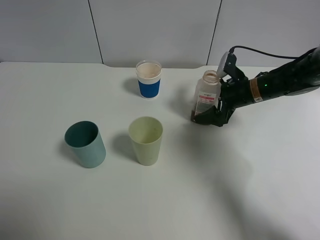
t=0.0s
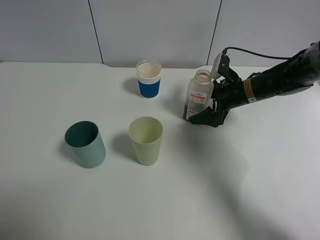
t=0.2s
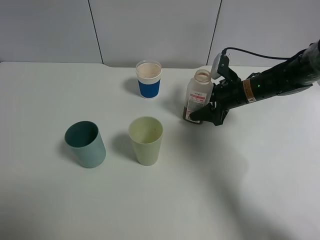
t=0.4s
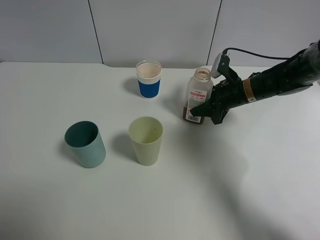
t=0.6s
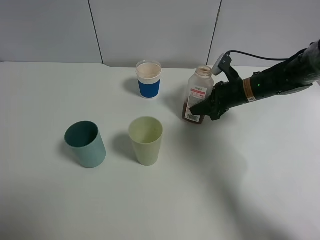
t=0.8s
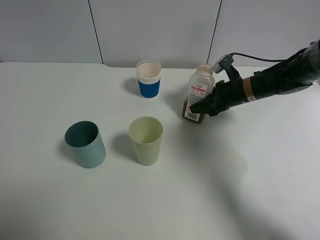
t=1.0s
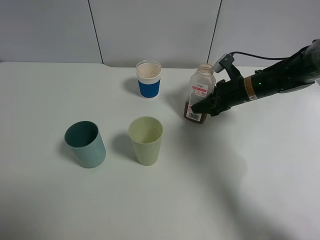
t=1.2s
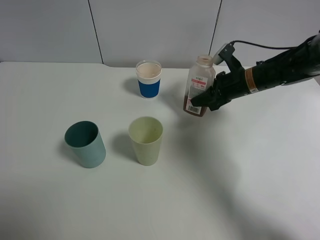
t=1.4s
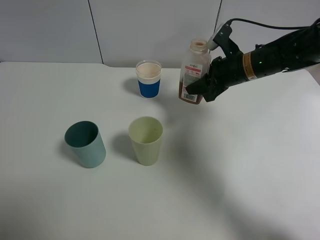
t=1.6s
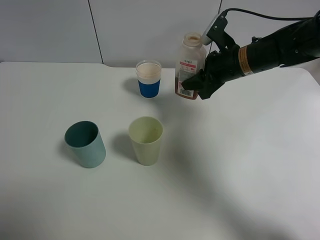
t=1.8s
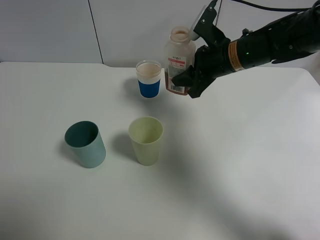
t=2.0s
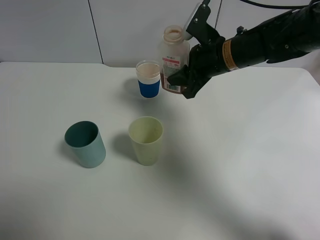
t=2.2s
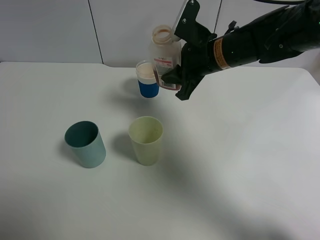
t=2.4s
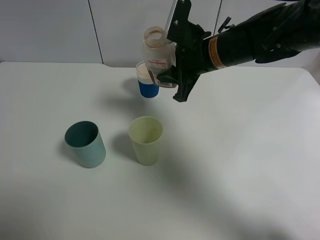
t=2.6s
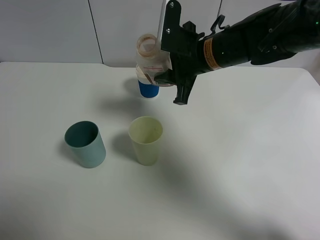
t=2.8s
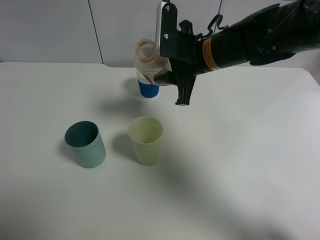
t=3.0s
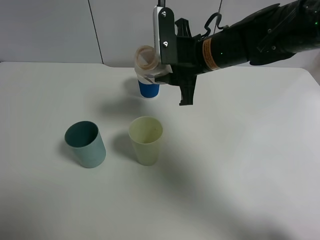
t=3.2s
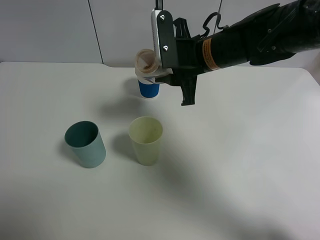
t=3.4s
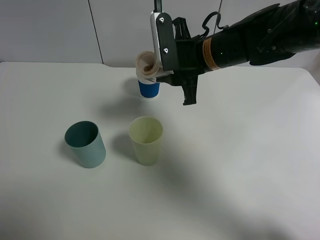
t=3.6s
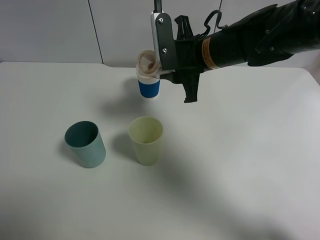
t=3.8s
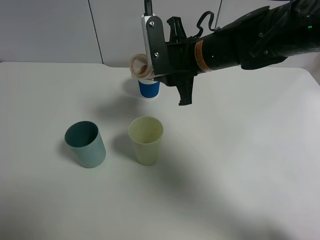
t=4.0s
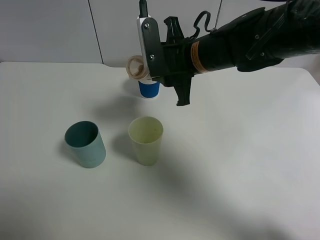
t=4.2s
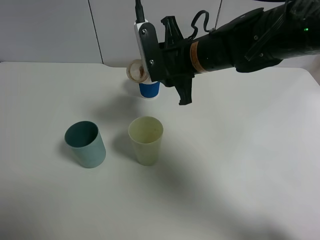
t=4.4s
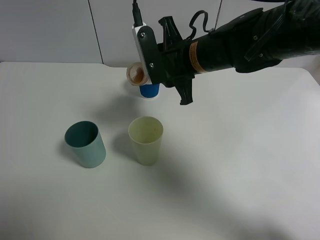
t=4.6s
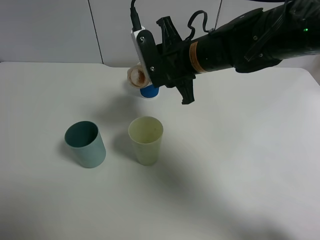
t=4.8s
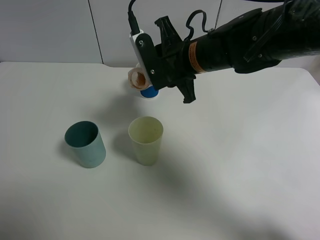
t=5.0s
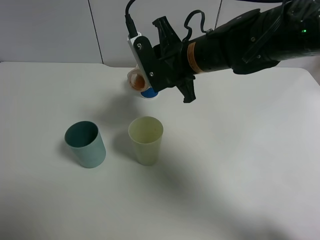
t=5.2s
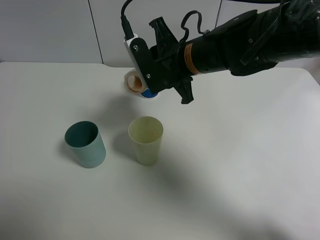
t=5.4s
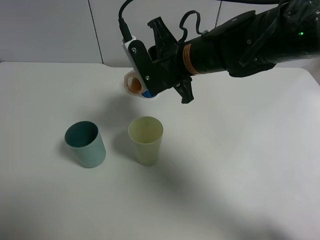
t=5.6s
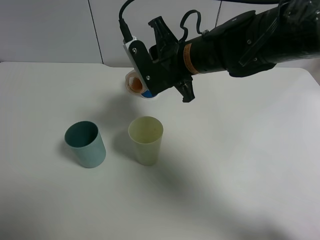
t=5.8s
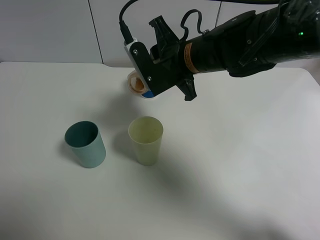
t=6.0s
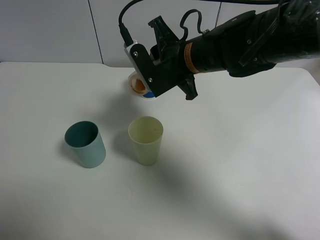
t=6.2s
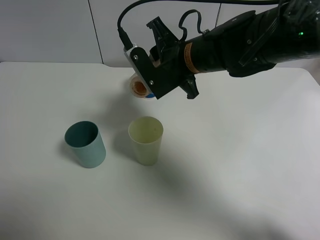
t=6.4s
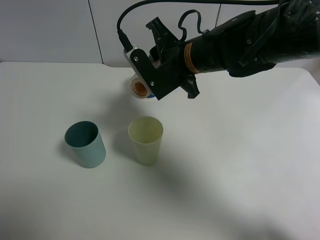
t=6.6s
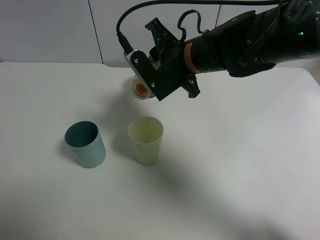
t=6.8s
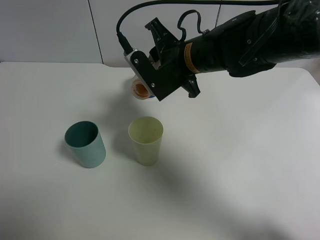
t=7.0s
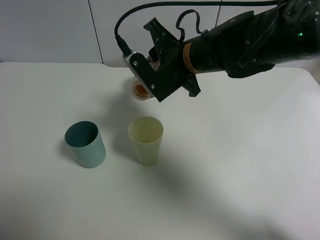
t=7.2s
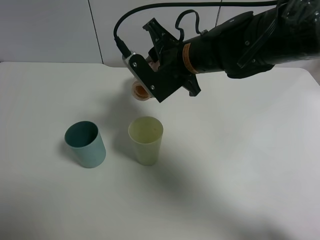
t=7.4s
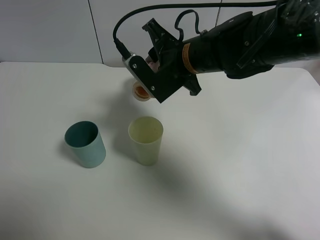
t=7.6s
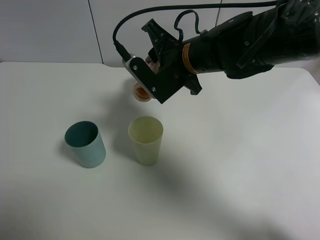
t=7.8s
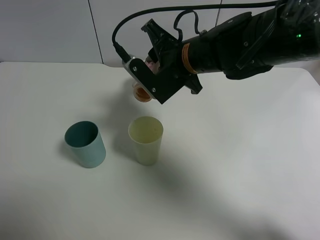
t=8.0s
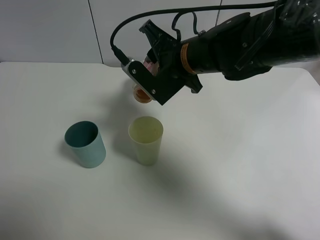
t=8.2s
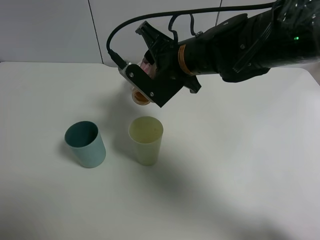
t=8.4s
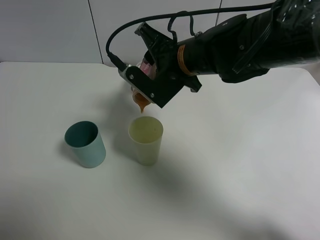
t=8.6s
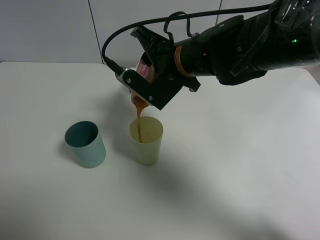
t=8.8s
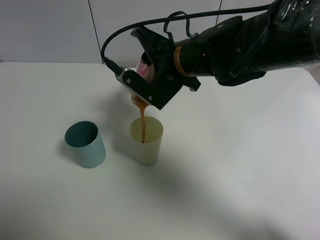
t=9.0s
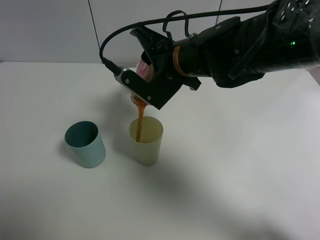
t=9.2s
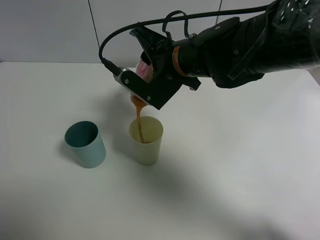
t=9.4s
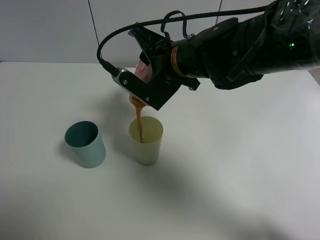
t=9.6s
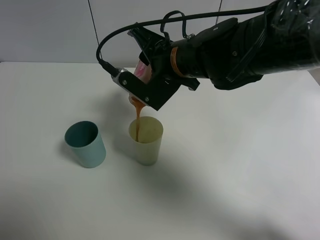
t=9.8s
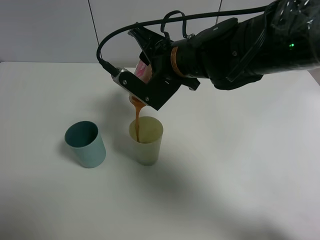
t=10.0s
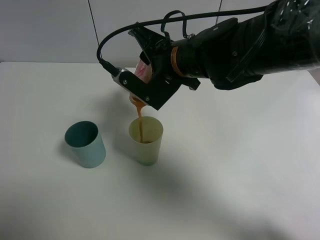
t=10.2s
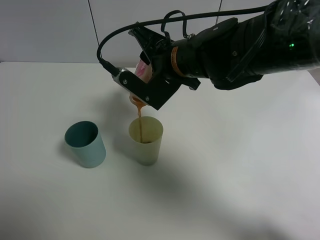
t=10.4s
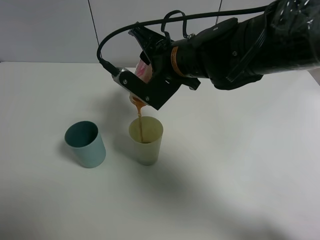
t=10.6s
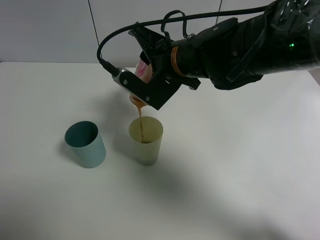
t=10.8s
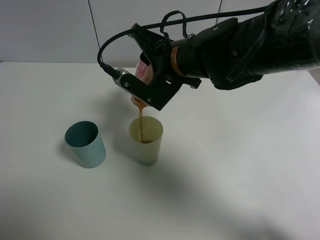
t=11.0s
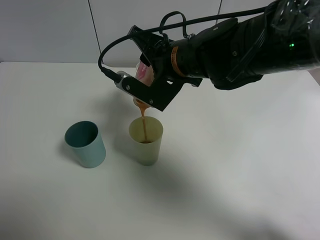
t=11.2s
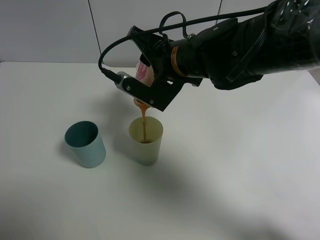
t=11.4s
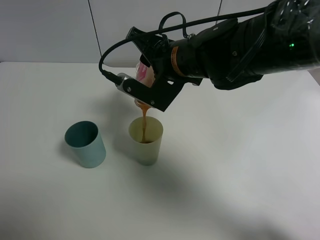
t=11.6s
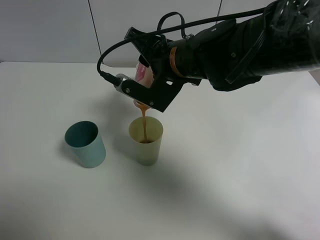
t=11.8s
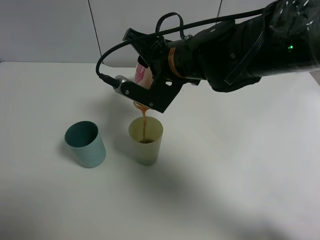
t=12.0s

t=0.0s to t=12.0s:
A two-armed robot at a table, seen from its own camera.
Task of the whole recording: use a gripper to hold the bottle of the drink and pour it into a random cup.
t=0.0s to t=1.6s: The right gripper travels upward by approximately 5 cm, and closes.
t=1.6s to t=3.0s: The right gripper is displaced to the left and upward by approximately 10 cm.
t=4.4s to t=6.0s: The grippers move only a little.
t=6.0s to t=7.6s: The grippers stay close to where they were, moving slightly.
t=7.6s to t=9.0s: The grippers stay close to where they were, moving slightly.
t=9.0s to t=10.4s: Both grippers stay about where they are.
t=10.4s to t=12.0s: There are only small adjustments of the grippers.

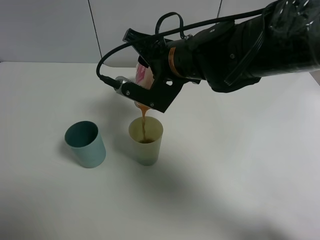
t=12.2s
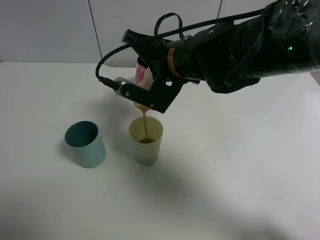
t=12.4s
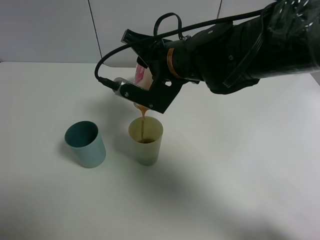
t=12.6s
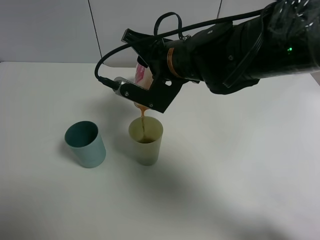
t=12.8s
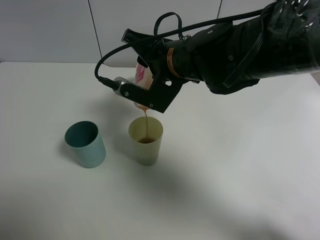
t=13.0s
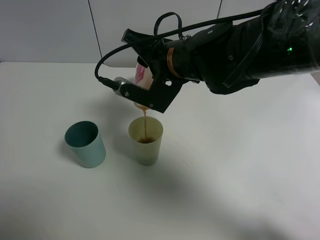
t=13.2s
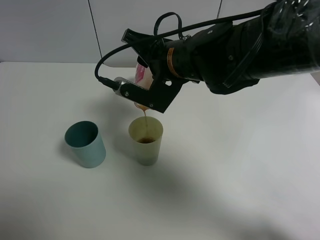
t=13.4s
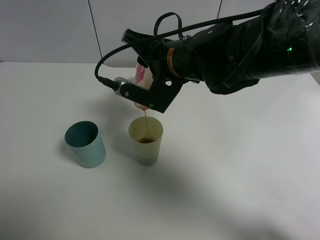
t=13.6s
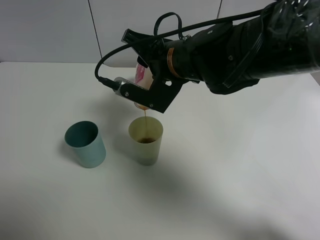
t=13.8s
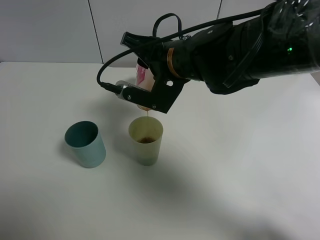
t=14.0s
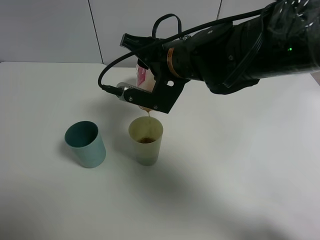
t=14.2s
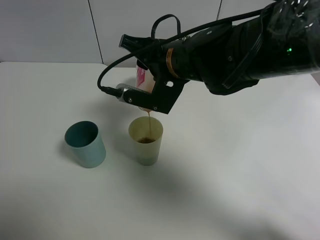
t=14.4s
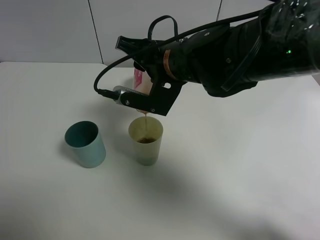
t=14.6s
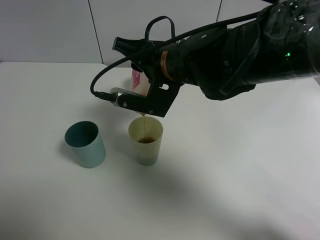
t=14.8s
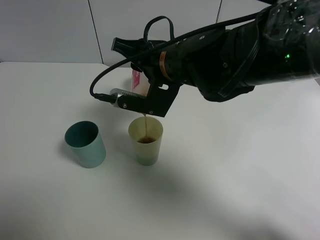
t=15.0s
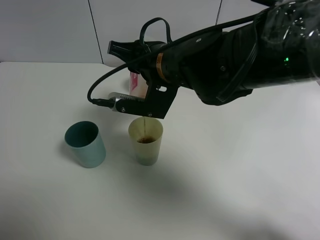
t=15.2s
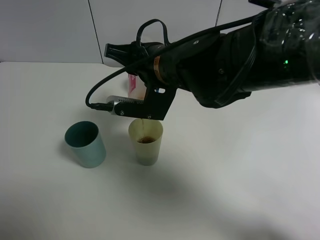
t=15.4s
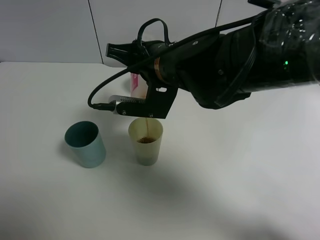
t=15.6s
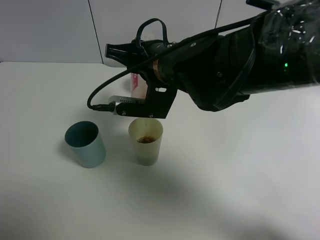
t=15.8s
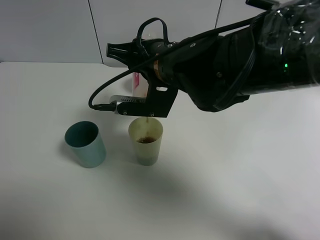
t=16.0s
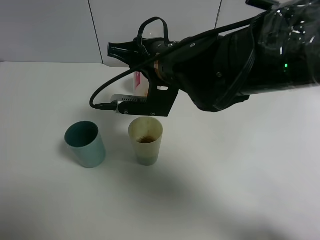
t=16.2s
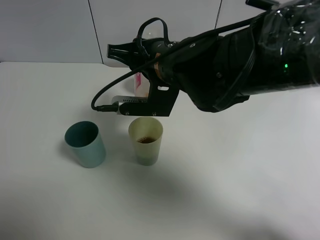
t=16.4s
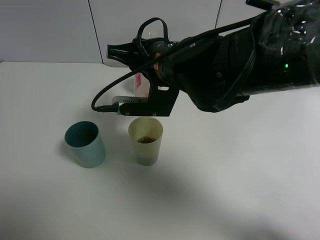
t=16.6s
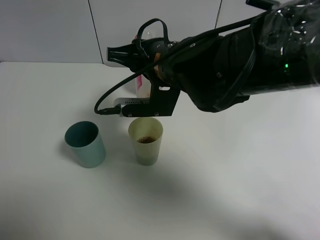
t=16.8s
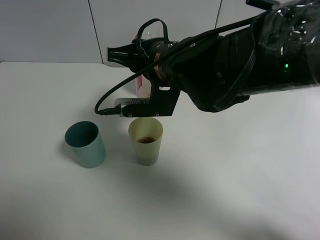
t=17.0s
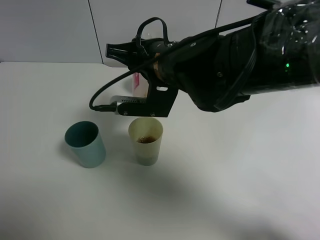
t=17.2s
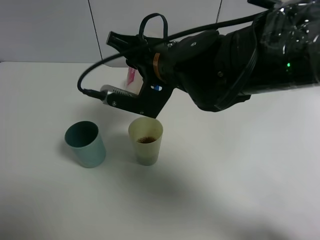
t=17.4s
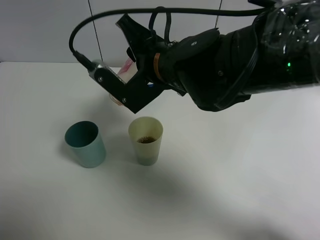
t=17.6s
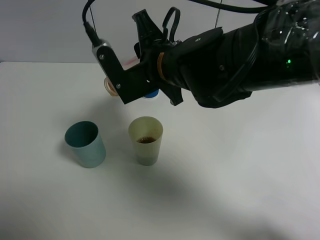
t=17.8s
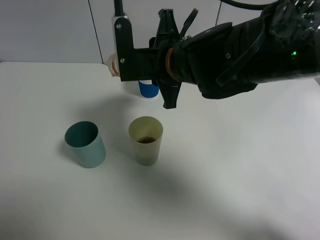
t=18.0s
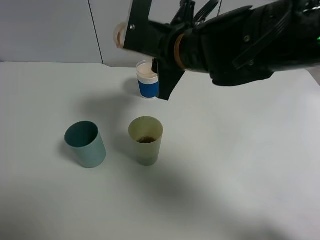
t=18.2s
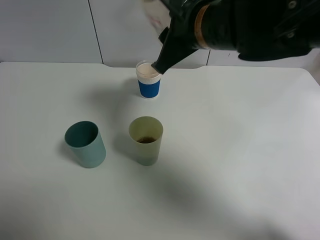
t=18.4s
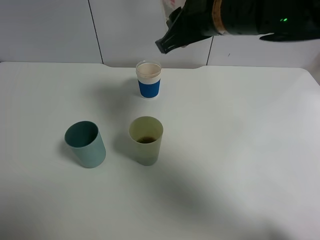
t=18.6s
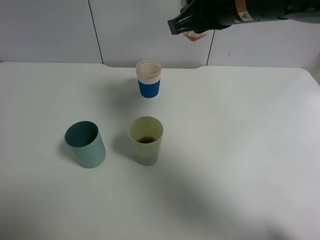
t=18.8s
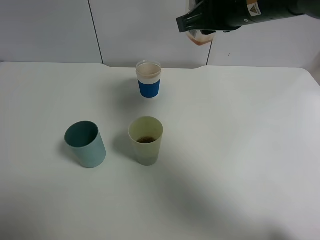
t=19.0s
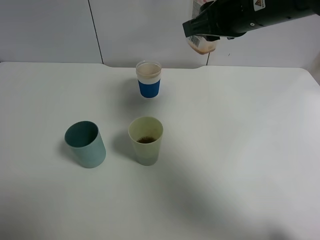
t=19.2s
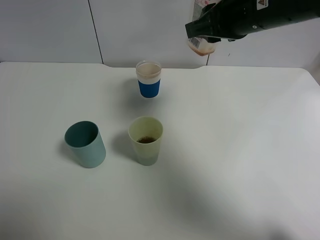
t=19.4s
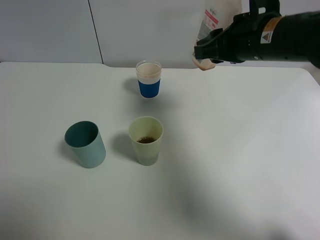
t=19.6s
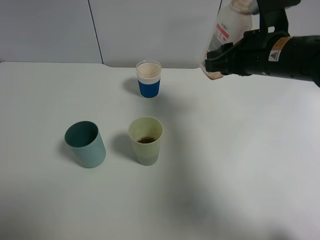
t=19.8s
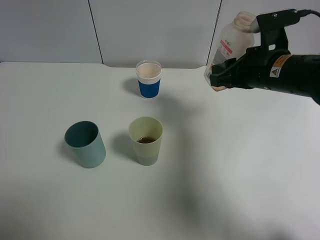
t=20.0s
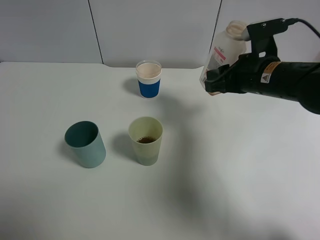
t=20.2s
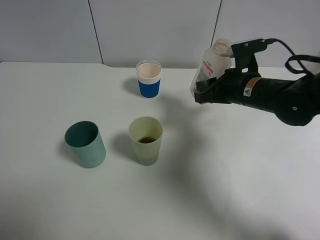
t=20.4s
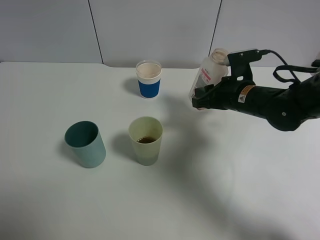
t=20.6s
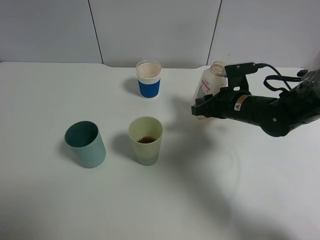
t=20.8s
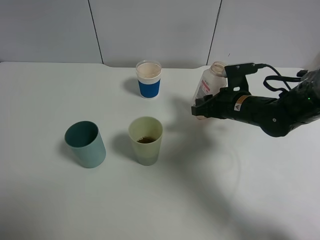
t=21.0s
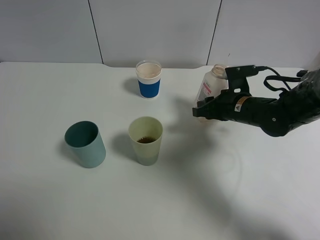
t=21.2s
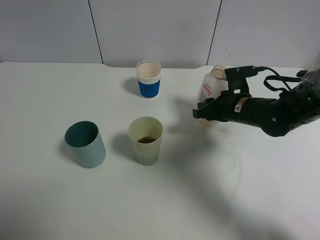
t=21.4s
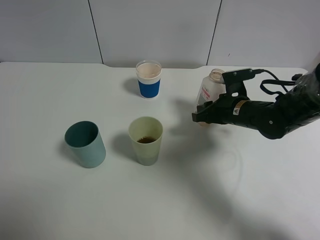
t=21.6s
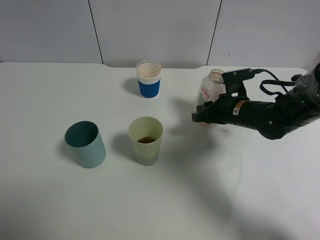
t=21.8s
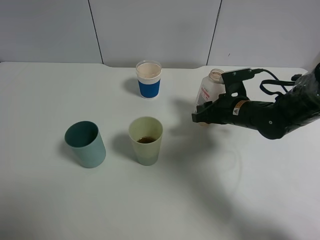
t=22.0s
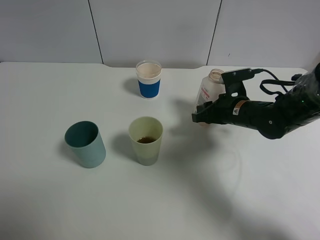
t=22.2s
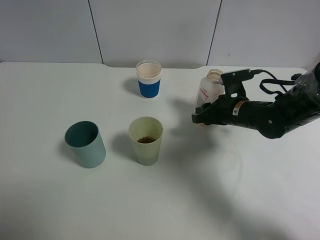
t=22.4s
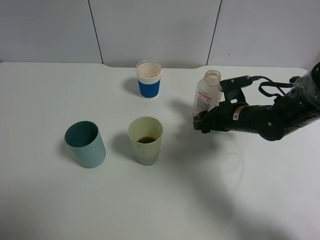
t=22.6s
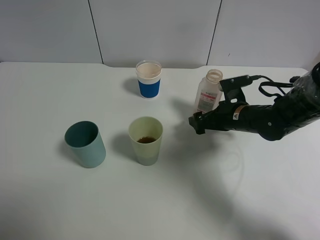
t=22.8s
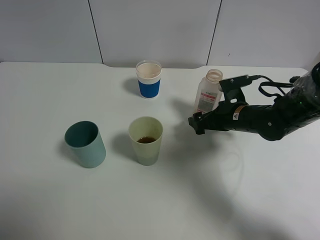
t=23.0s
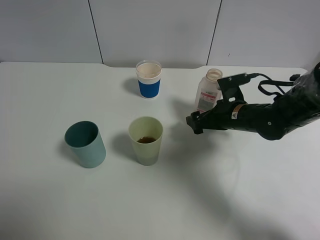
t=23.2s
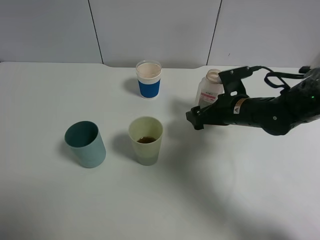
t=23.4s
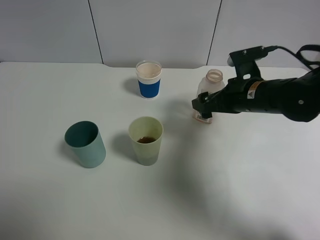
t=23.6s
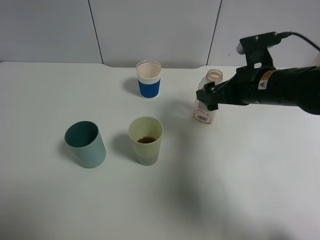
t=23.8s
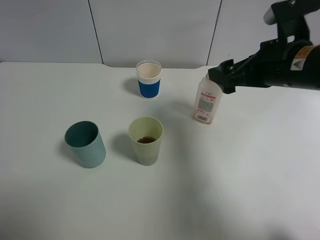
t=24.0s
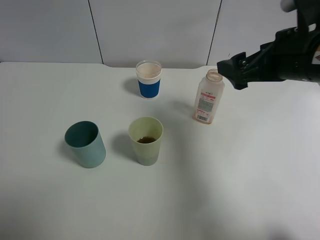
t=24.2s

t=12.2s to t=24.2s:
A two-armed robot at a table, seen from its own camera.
Task of the whole recording: use a gripper to hold the bottle of the drink and pour it into a random cup.
Step, t=12.2s to t=17.2s: Pour the cranberry juice into the White Plastic Cup with the right gripper.
Step, t=17.4s to t=23.0s: Place the cranberry juice bottle on the table with the right gripper.
t=12.2s to t=13.8s: The two grippers keep their place.
t=13.8s to t=15.2s: The grippers stay close to where they were, moving slightly.
t=15.2s to t=16.6s: The grippers stay close to where they were, moving slightly.
t=18.2s to t=19.8s: The right gripper goes approximately 15 cm to the right.
t=19.8s to t=21.2s: The right gripper moves downward, roughly 15 cm.
t=21.2s to t=22.6s: The right gripper opens its fingers.
t=22.6s to t=24.2s: The right gripper travels upward and backward by roughly 20 cm.
